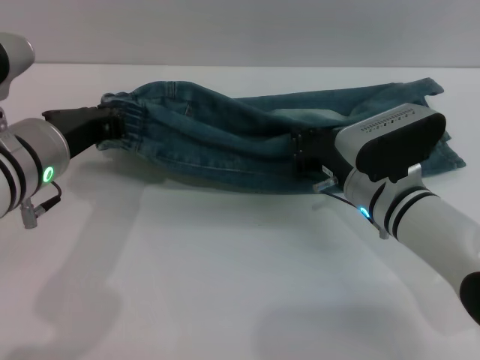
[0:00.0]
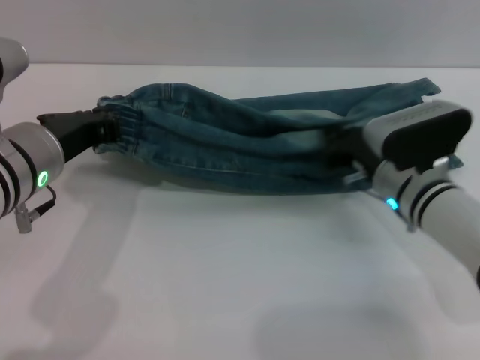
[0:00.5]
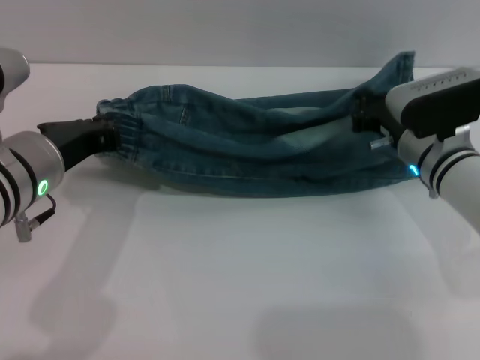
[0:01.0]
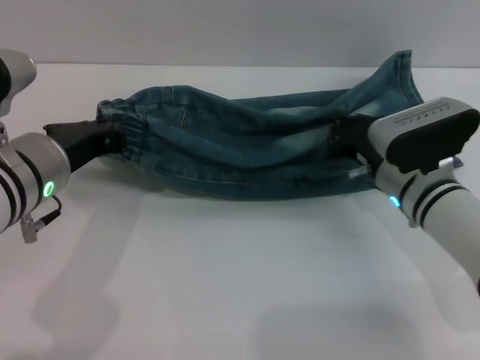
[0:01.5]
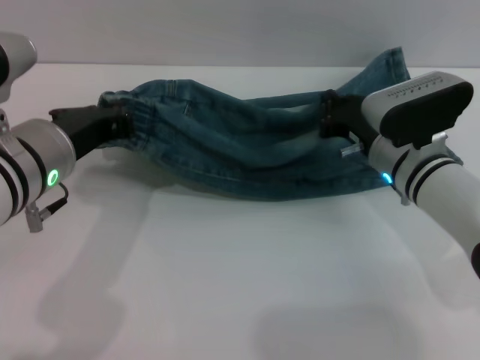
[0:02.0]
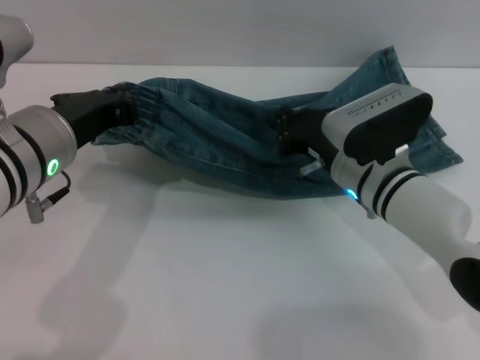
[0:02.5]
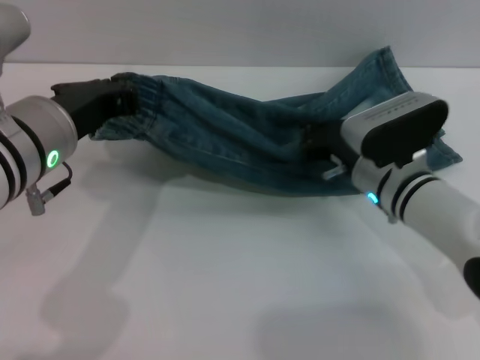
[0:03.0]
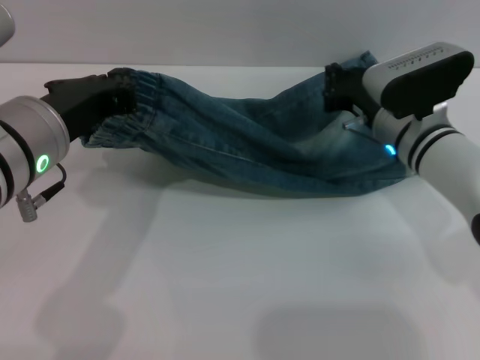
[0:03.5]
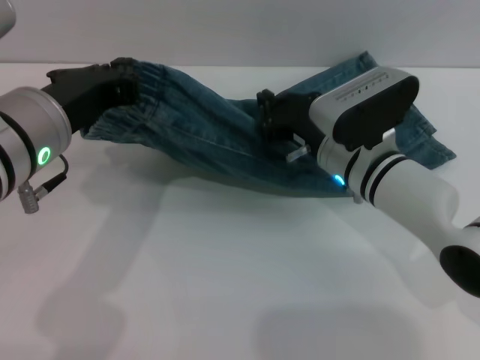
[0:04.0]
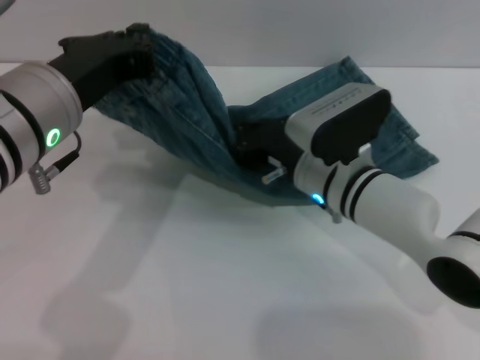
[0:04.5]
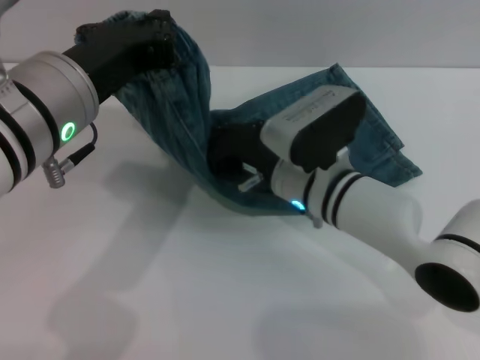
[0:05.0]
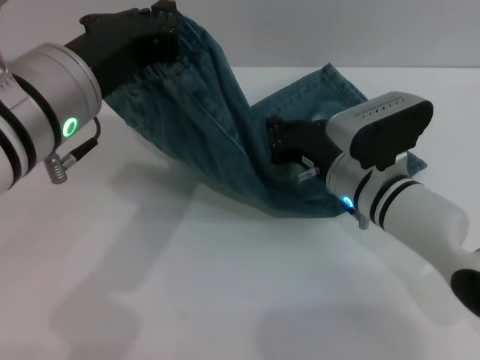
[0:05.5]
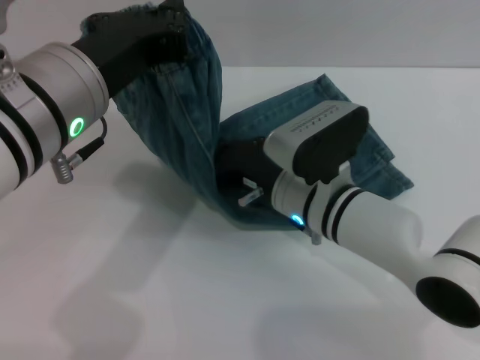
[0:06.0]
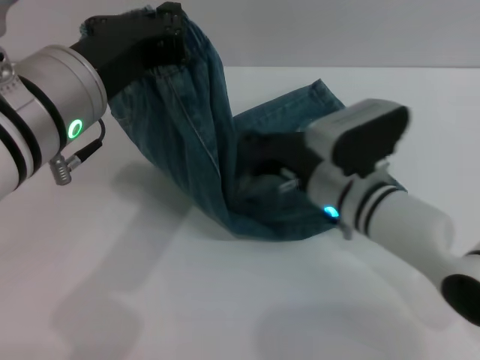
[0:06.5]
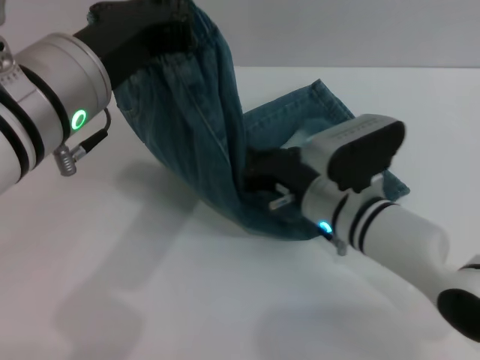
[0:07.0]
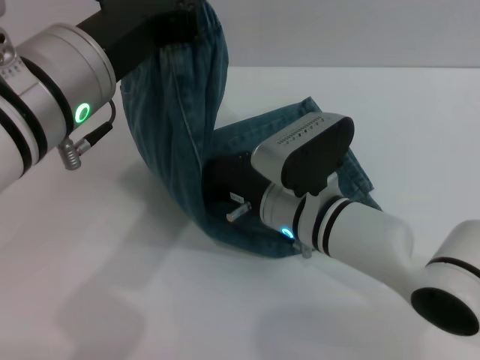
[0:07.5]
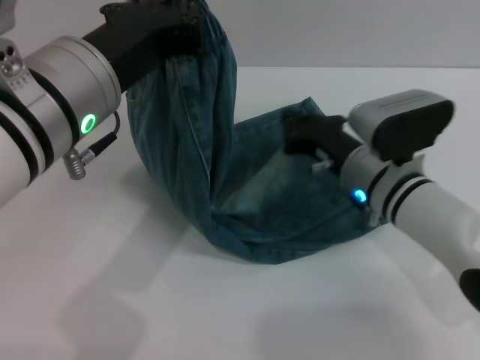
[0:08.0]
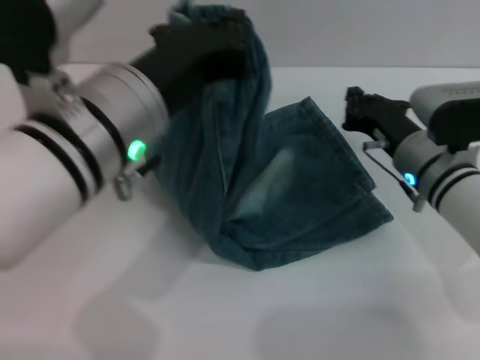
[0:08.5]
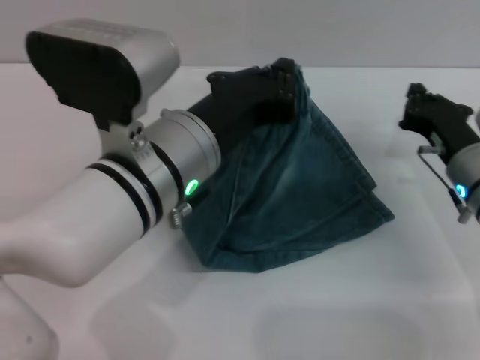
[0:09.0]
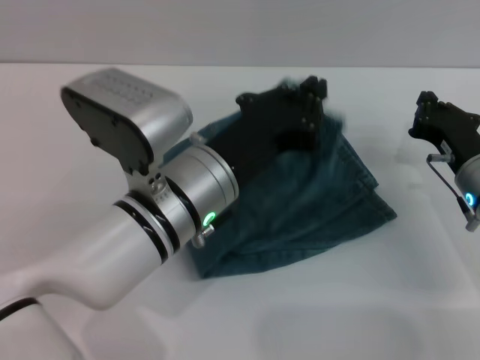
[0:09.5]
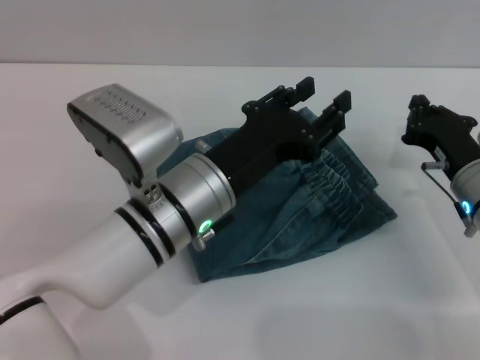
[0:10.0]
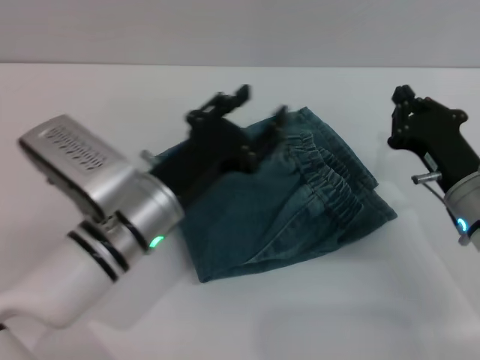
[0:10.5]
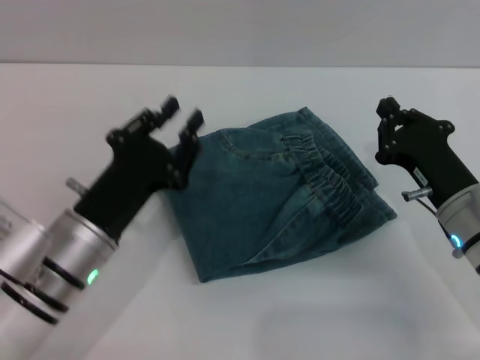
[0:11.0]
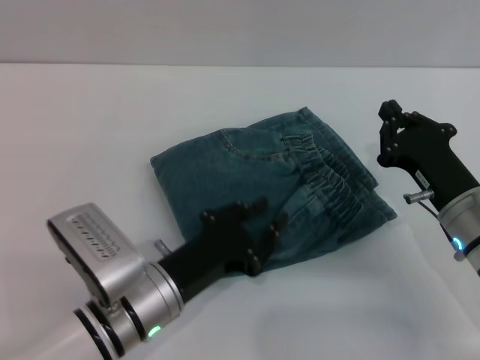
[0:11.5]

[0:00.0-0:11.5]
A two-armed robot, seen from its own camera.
Step, 0:00.0 to 0:09.5: Fold the pants from left to right with the left gripper.
0:02.0 to 0:04.0: The right gripper swings left and right, roughly 5 cm each way, with 2 reversals.
0:04.0 to 0:06.0: The right gripper swings left and right, roughly 5 cm each way, with 2 reversals.
0:07.5 to 0:09.5: The left gripper travels downward and to the right by some 15 cm, while the right gripper goes approximately 20 cm to the right.
0:09.5 to 0:11.5: The left gripper shifts roughly 10 cm downward and to the left, and opens up. The right gripper changes place by about 5 cm.

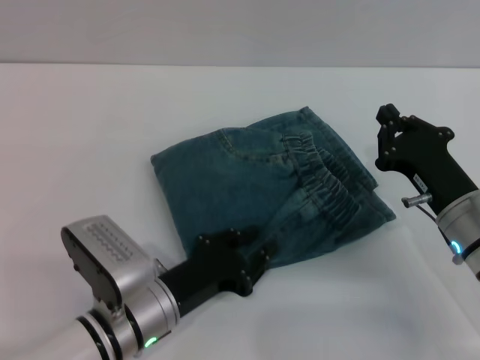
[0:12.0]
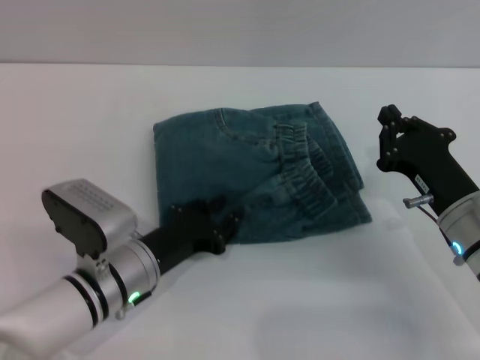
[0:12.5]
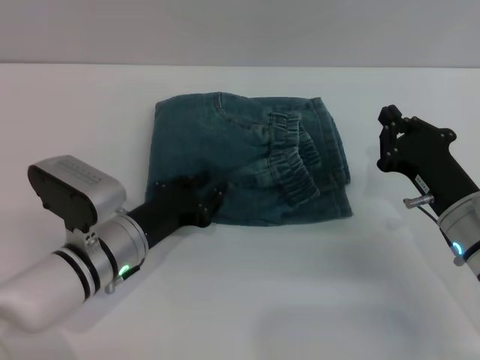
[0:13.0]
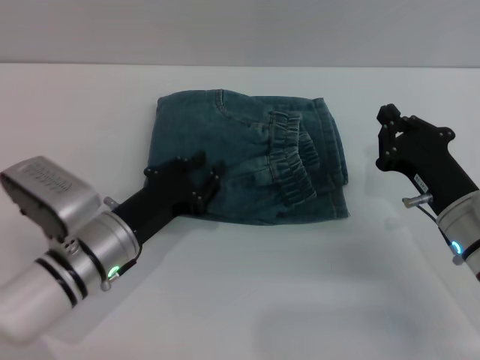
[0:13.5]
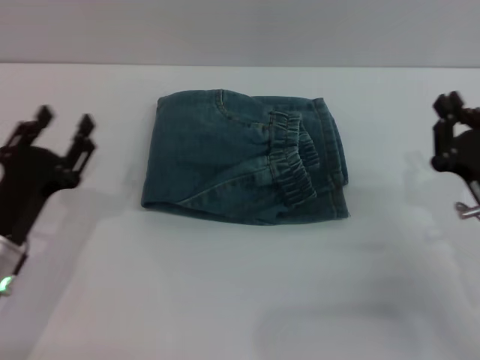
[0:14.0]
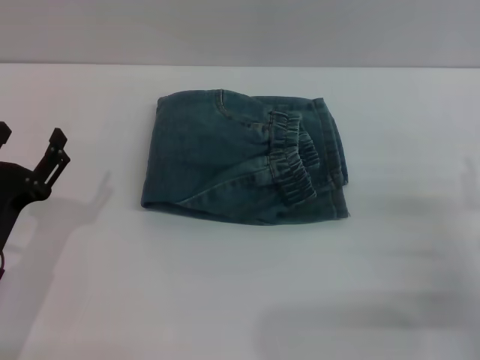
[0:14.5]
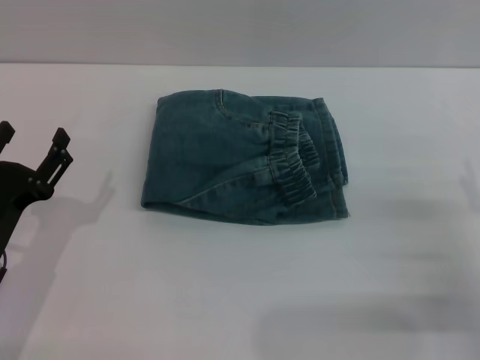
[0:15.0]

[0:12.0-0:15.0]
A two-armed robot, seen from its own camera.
0:12.0 to 0:13.5: The left gripper travels forward by about 5 cm.
0:13.5 to 0:15.0: The right gripper goes some 10 cm to the right and backward, and opens. Meanwhile the left gripper moves to the left and backward, roughly 10 cm, and opens its fingers.

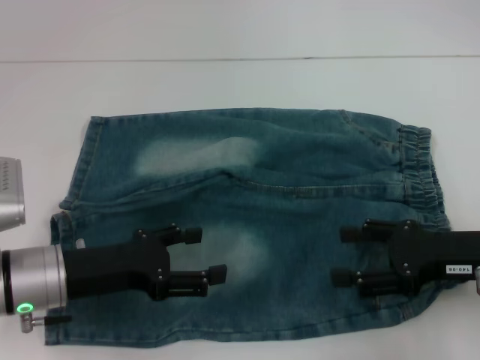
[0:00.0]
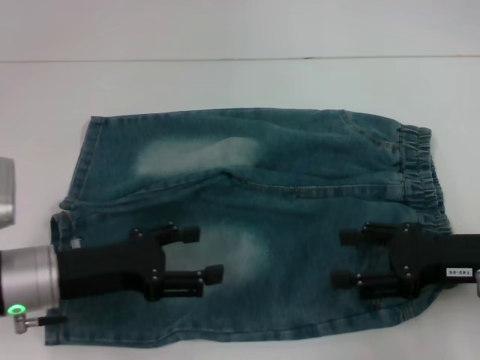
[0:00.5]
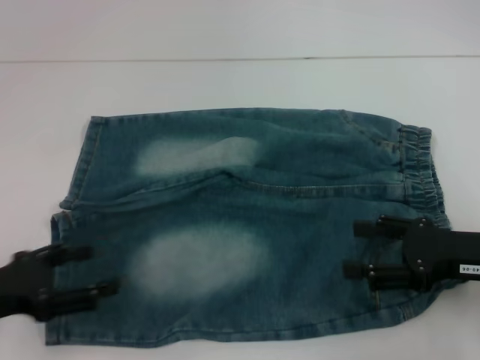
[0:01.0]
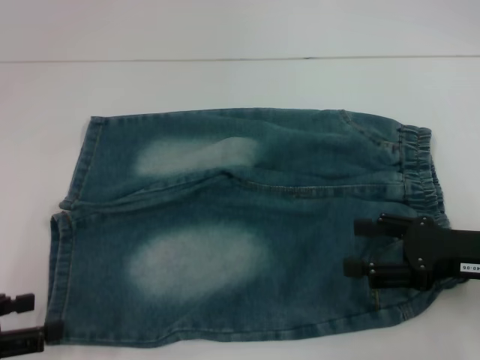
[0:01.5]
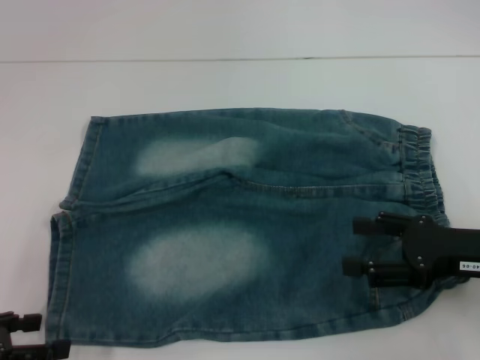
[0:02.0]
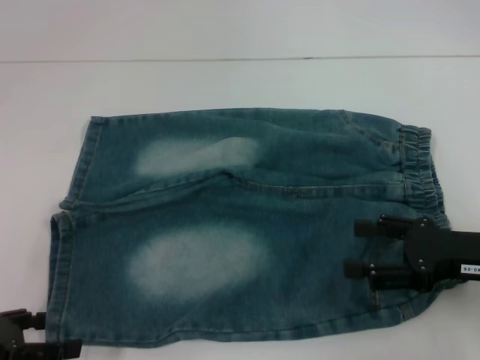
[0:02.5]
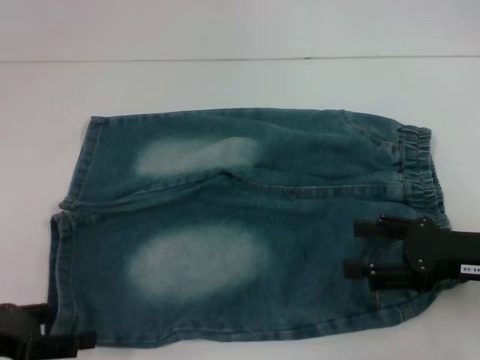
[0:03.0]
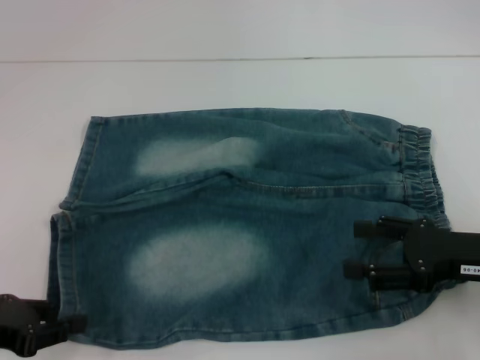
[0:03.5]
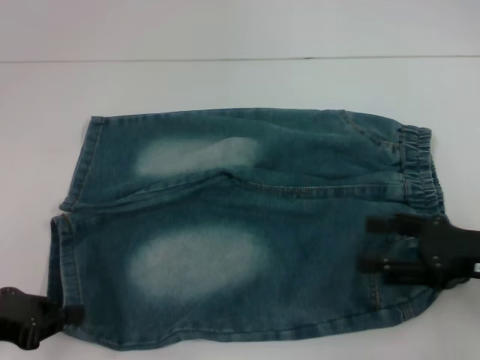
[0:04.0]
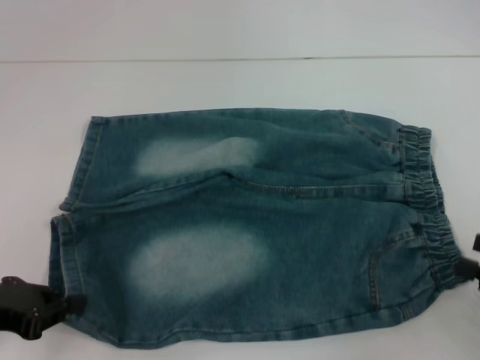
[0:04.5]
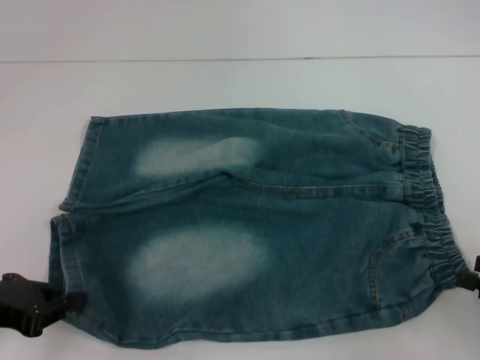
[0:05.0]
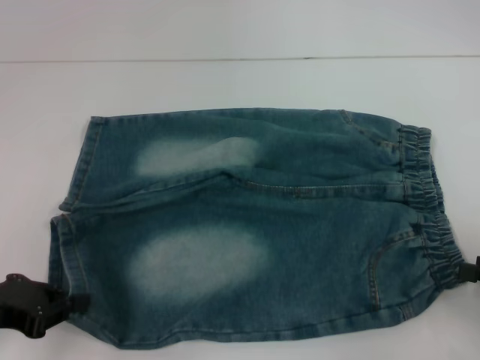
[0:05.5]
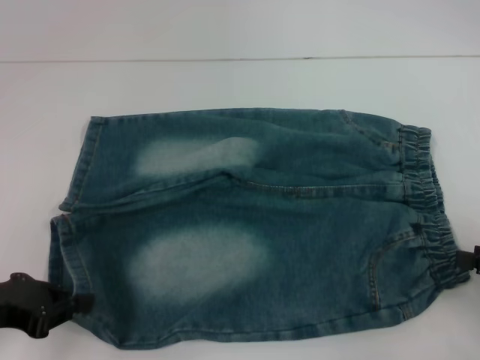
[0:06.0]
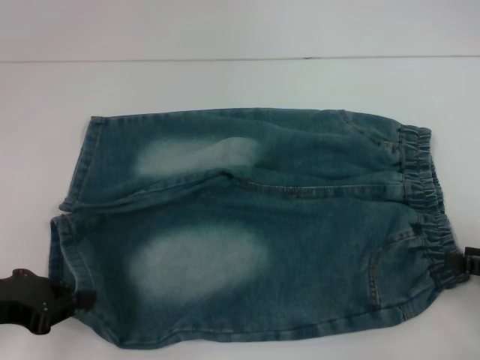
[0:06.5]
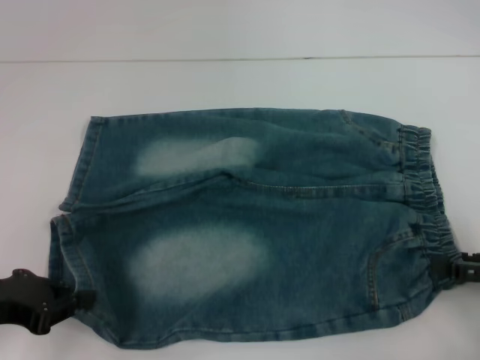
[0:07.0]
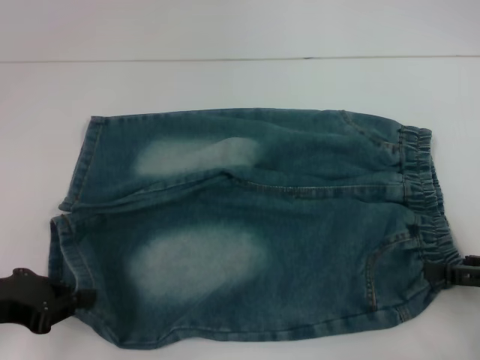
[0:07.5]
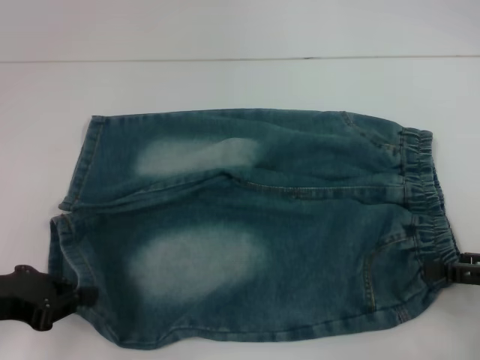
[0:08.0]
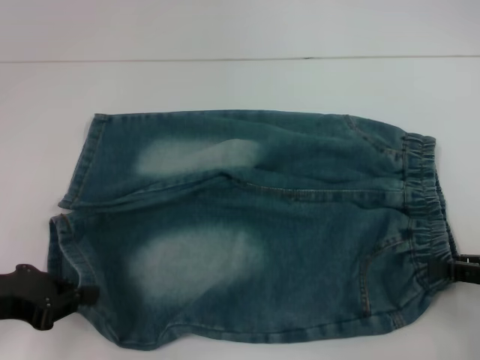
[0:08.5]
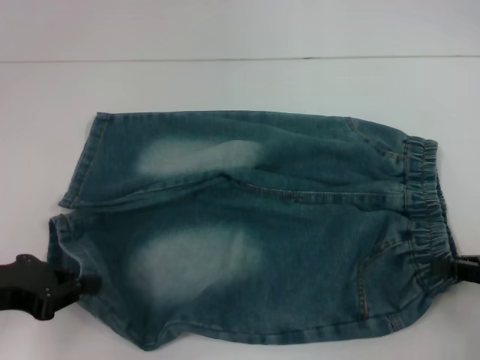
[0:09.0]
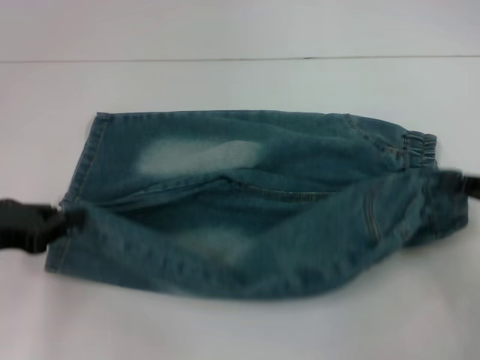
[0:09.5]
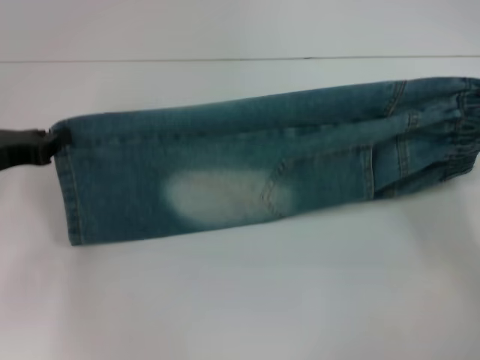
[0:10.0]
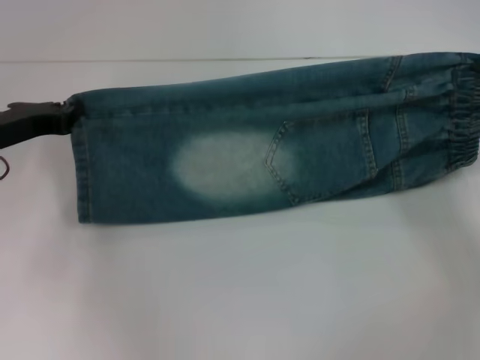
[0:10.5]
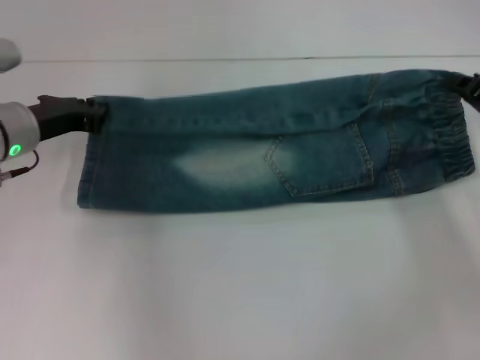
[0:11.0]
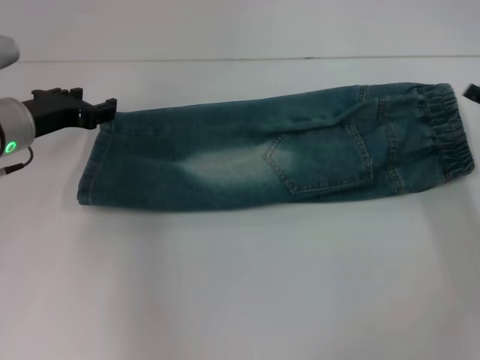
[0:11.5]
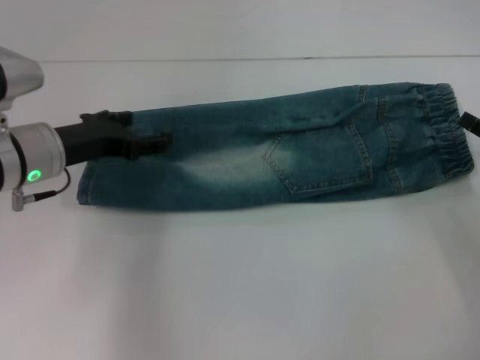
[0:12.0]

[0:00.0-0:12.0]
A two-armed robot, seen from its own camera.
Step, 0:00.0 to 0:03.5: Grab the lower left pant leg with your left hand.
Step, 0:04.0 to 0:08.5: Hold the lower right waistband with your right hand.
Step, 0:09.0 to 0:11.0: Fold upward with your left hand.
0:00.0 to 0:02.0: The left gripper is displaced to the left and backward by approximately 15 cm.
0:02.0 to 0:04.0: The left gripper closes up.
0:04.0 to 0:06.0: The right gripper is displaced to the right by about 10 cm.
0:06.0 to 0:08.0: The grippers move only a little.
0:08.0 to 0:10.0: Both grippers move forward, roughly 10 cm. The right gripper closes its fingers.
0:10.0 to 0:12.0: The left gripper heads to the right, covering about 10 cm, and opens its fingers. Meanwhile the right gripper opens.
